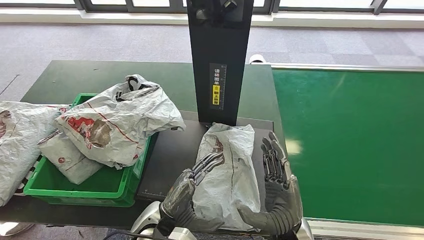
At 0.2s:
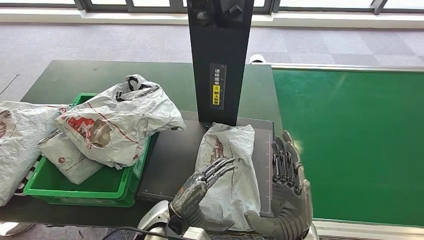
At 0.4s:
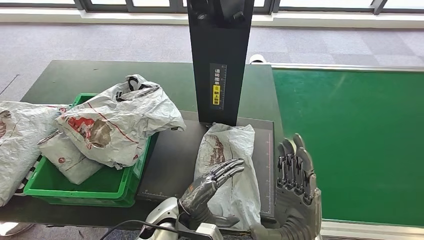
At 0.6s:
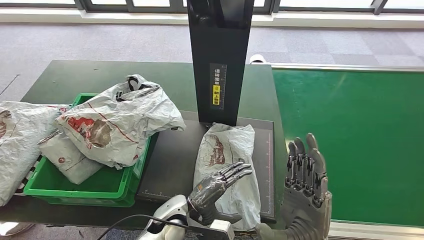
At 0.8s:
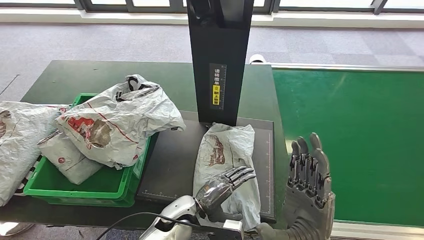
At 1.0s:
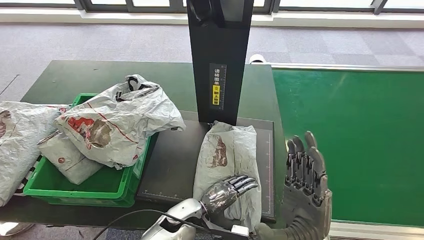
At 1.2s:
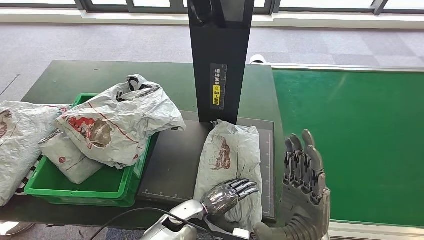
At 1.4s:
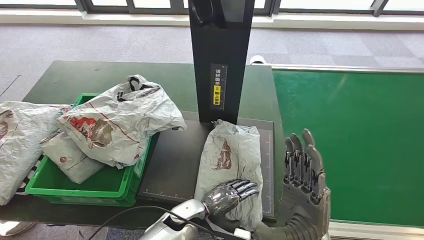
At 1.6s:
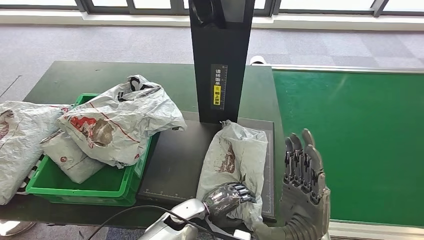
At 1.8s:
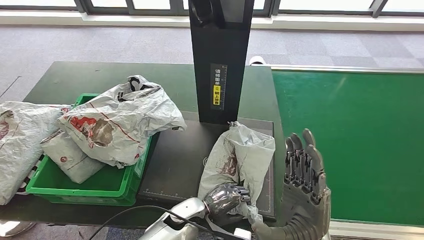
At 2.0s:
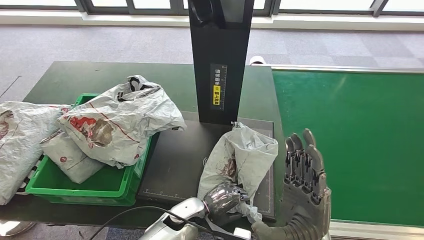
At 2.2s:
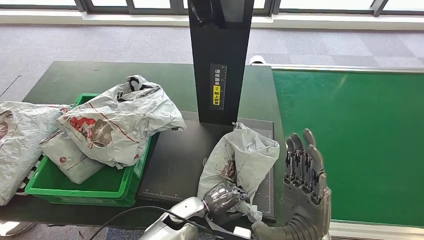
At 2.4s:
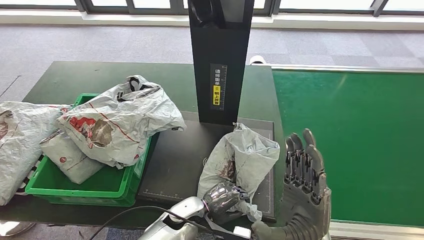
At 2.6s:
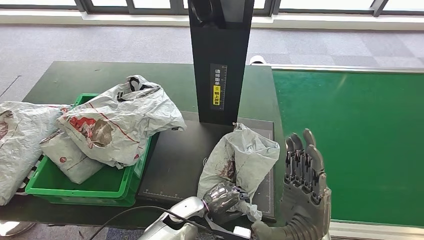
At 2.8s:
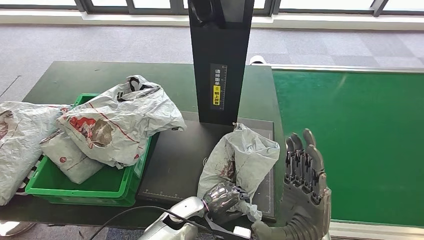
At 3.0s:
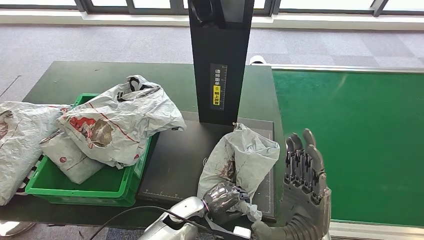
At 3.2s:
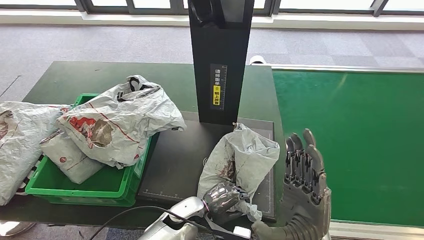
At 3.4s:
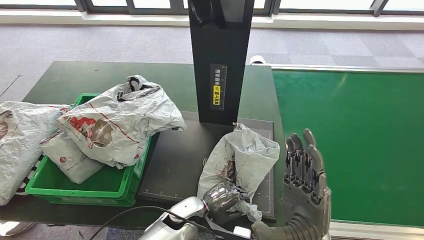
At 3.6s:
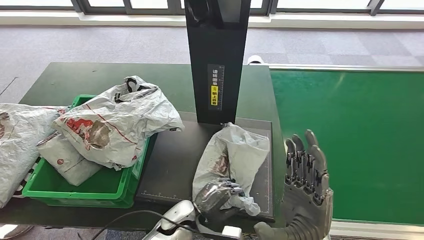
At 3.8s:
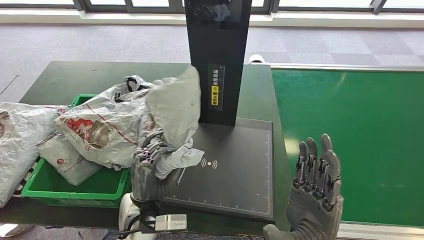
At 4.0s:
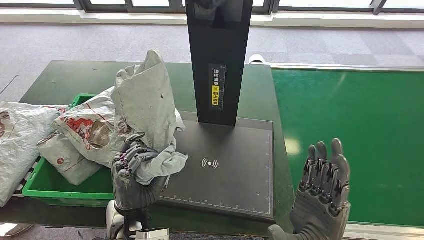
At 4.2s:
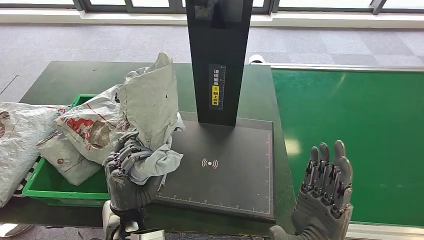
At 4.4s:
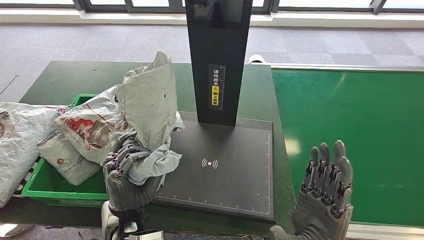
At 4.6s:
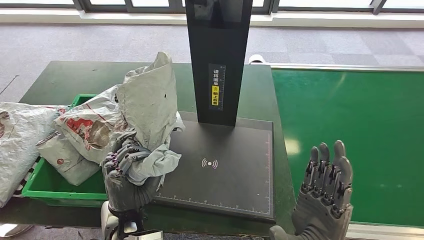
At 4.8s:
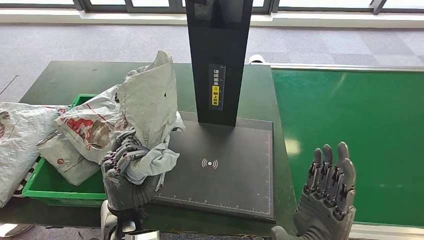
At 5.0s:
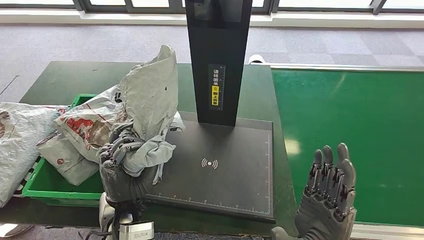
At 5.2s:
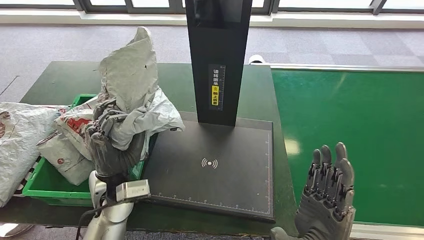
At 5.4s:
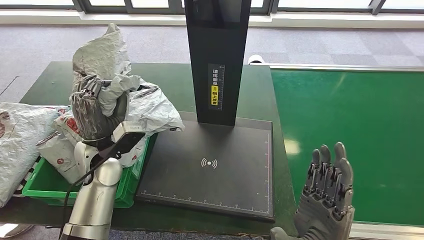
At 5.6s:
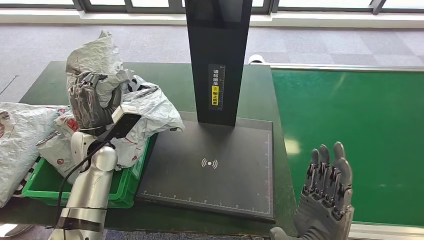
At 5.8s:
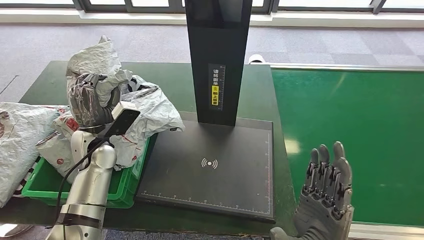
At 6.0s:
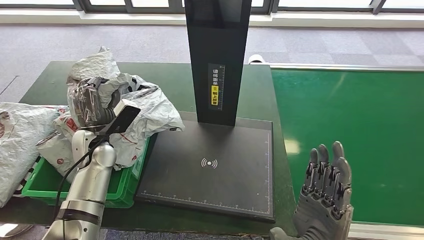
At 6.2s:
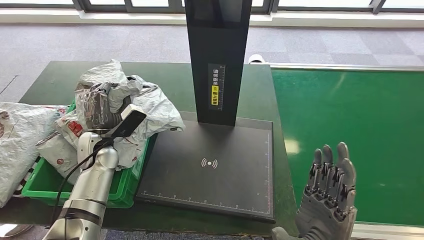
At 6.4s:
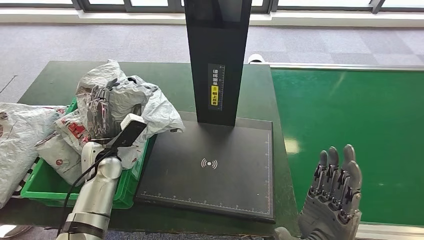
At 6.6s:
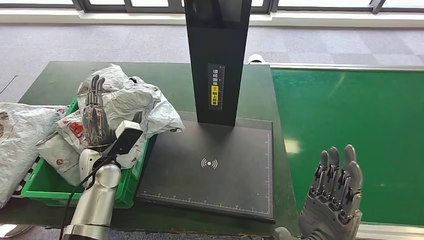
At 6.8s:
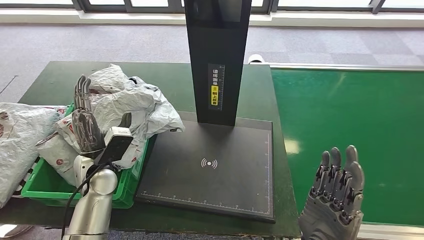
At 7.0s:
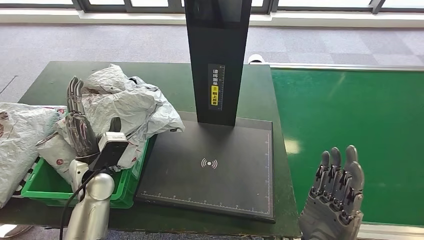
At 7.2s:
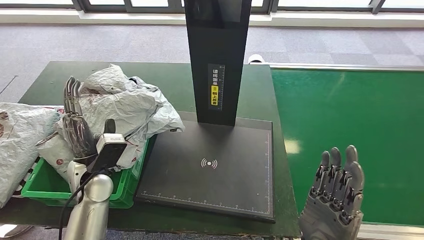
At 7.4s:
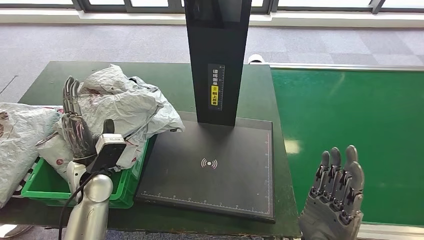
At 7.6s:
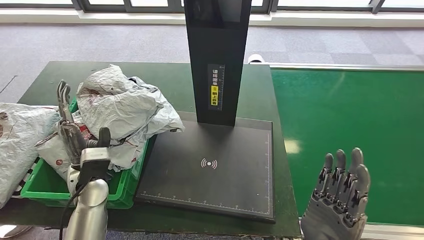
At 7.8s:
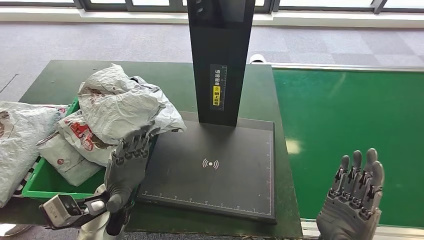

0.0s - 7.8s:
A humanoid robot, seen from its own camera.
Step, 2.8s - 4.2s: Pick up the parcel from the inbound machine.
Step, 4.4s - 7.8s: Place the parcel into the delivery box.
1.6s - 3.2s: Both hands stay put.
4.6s - 6.2s: The left hand travels forward and to the left by approximately 20 cm.
6.2s - 7.8s: The left hand goes roughly 15 cm backward and to the right.

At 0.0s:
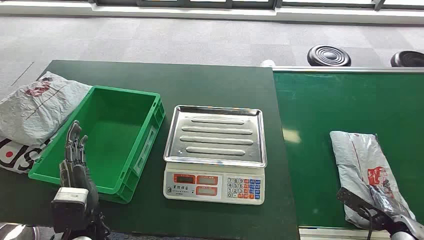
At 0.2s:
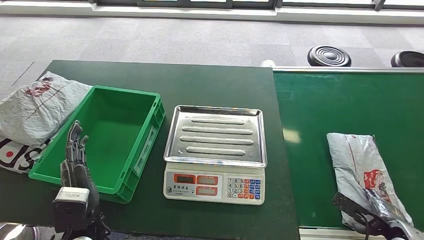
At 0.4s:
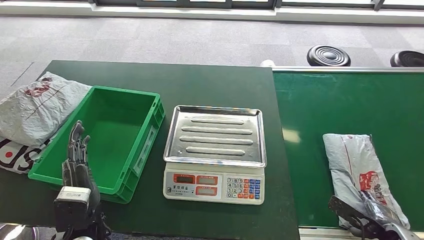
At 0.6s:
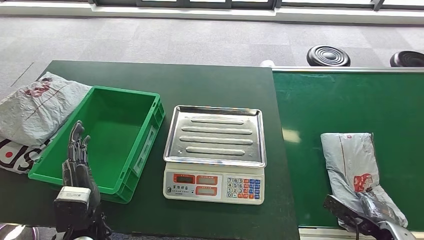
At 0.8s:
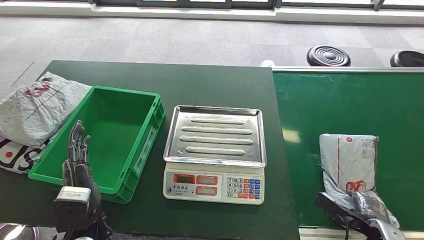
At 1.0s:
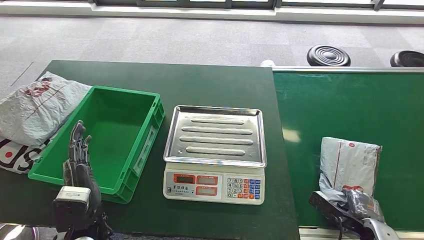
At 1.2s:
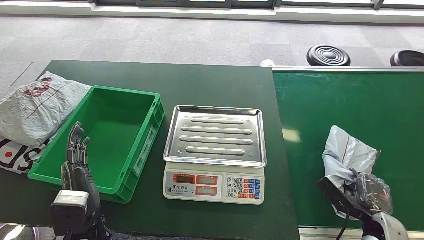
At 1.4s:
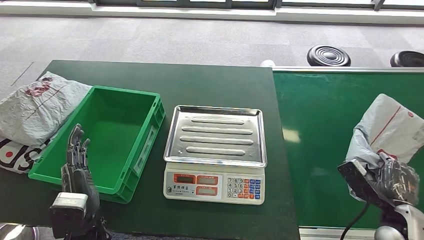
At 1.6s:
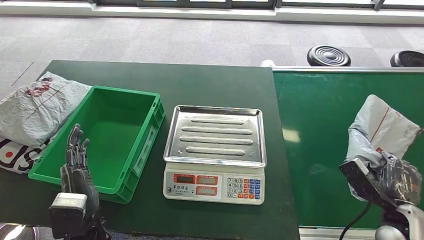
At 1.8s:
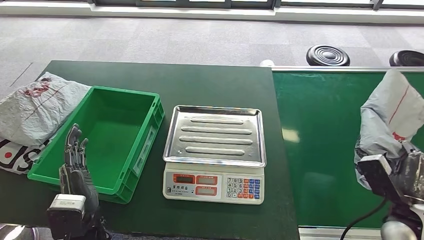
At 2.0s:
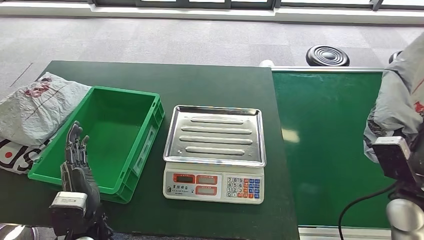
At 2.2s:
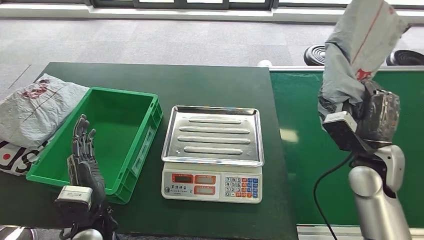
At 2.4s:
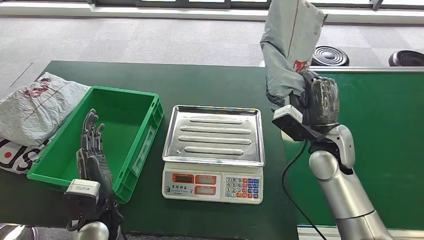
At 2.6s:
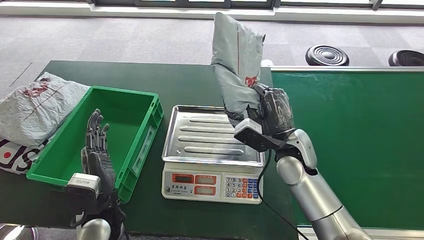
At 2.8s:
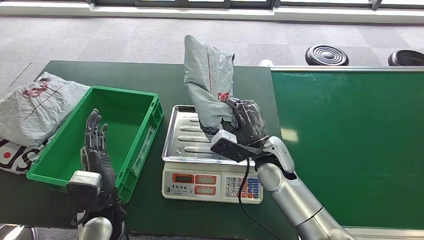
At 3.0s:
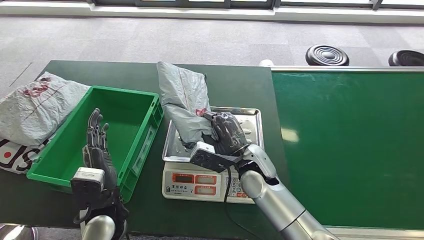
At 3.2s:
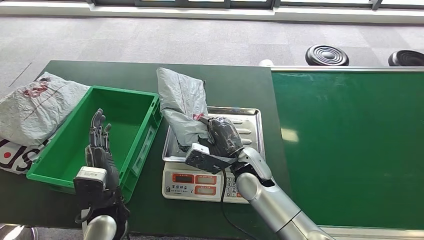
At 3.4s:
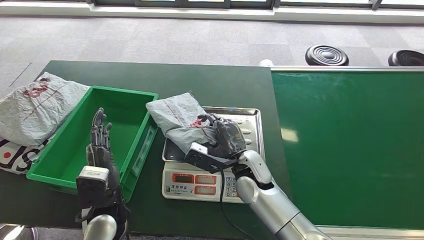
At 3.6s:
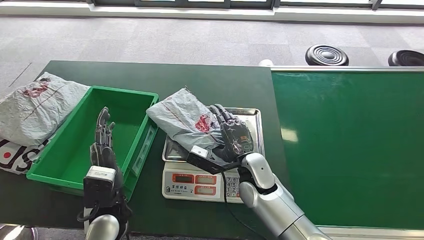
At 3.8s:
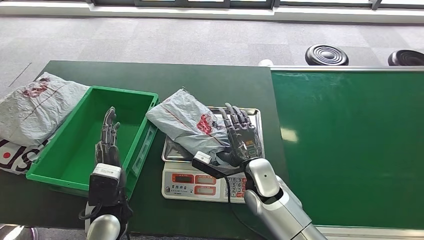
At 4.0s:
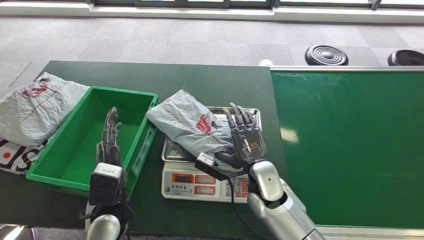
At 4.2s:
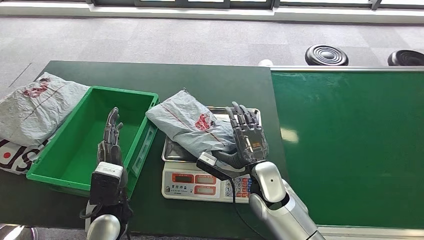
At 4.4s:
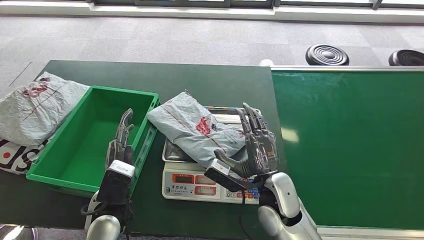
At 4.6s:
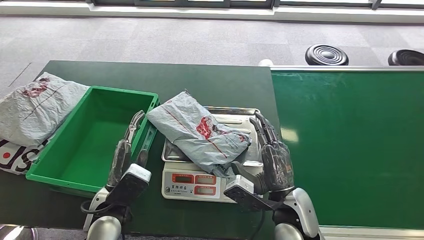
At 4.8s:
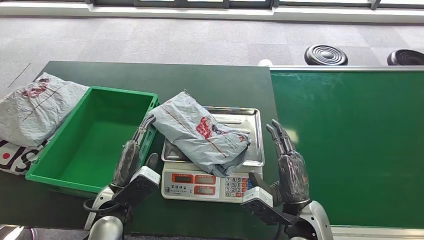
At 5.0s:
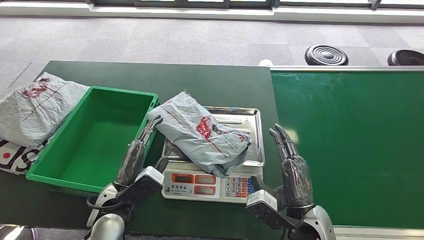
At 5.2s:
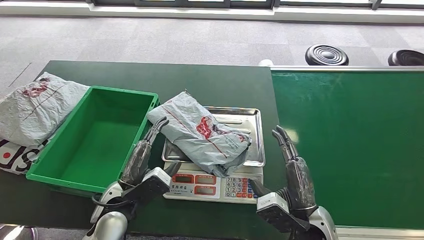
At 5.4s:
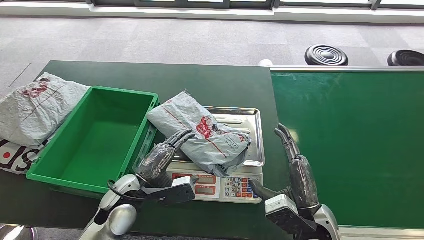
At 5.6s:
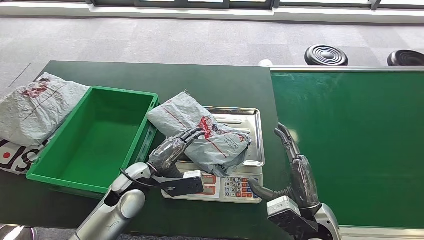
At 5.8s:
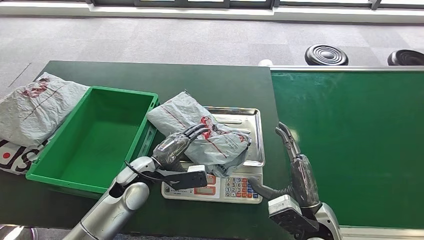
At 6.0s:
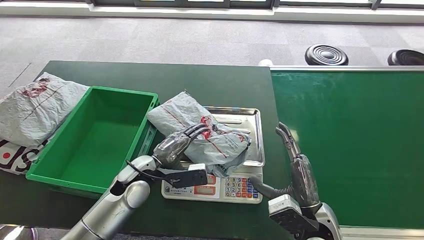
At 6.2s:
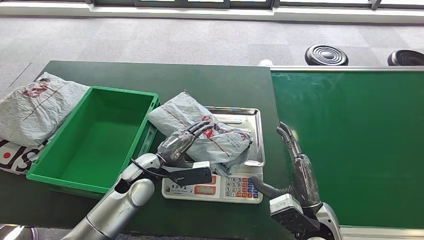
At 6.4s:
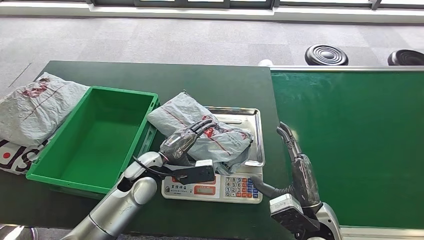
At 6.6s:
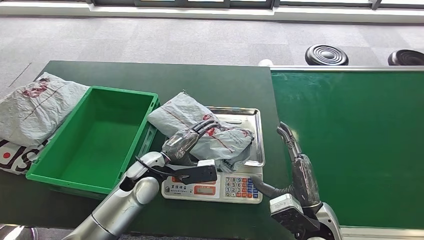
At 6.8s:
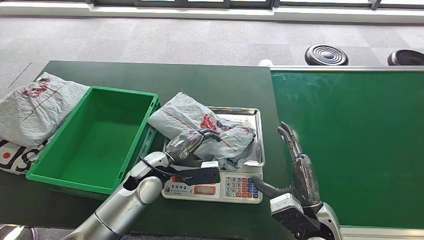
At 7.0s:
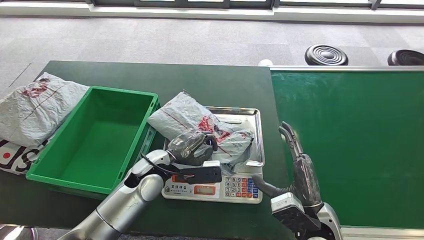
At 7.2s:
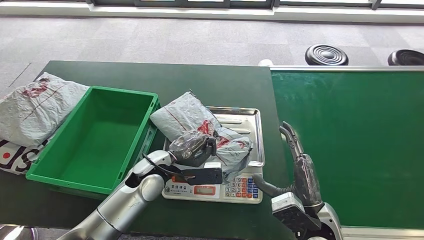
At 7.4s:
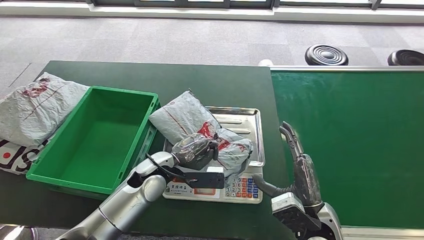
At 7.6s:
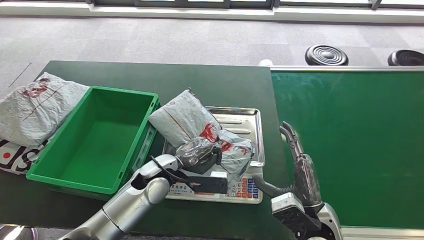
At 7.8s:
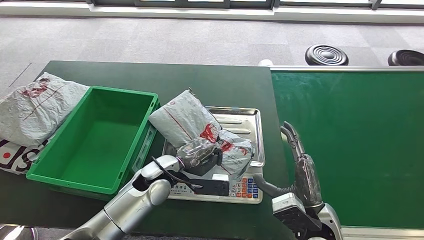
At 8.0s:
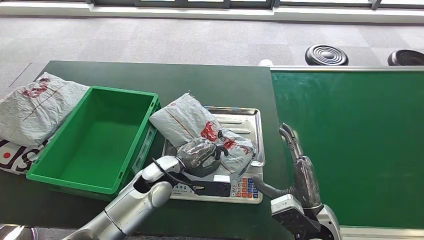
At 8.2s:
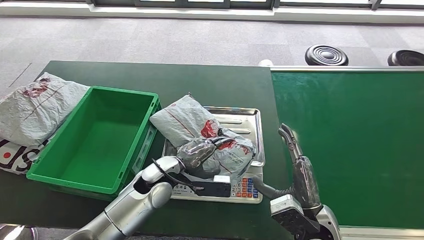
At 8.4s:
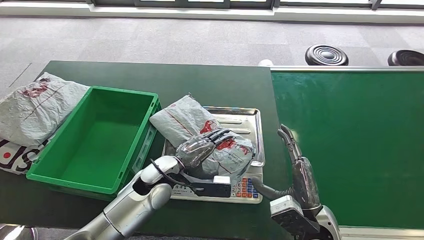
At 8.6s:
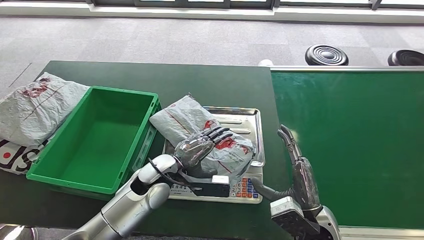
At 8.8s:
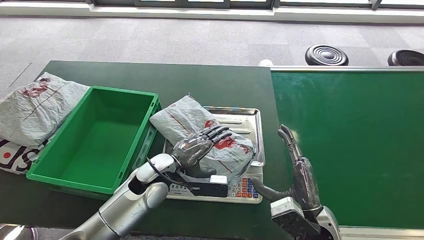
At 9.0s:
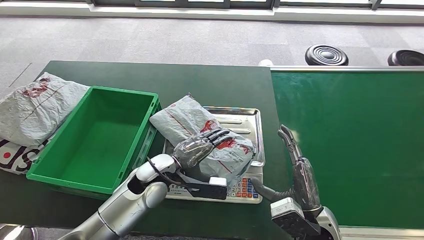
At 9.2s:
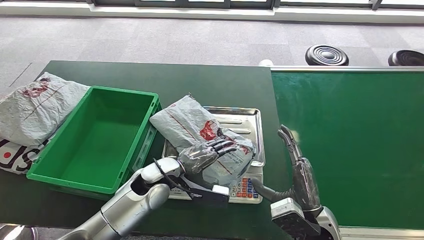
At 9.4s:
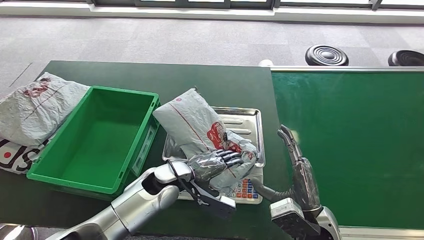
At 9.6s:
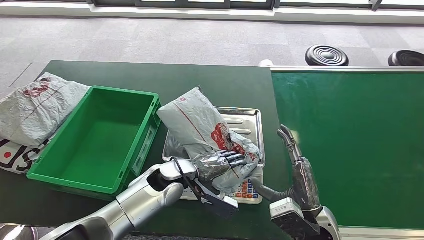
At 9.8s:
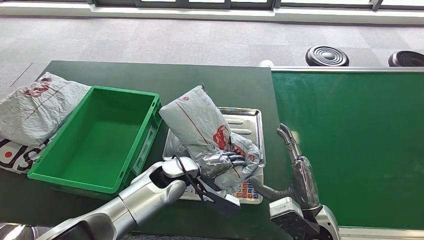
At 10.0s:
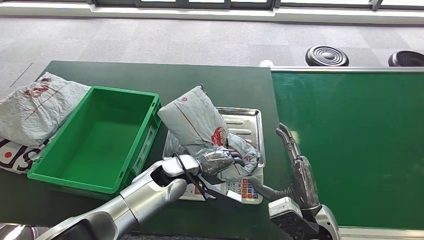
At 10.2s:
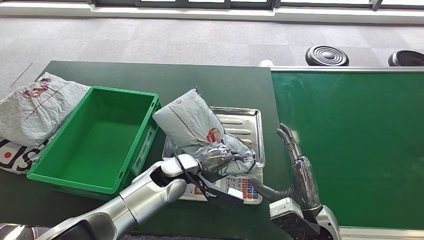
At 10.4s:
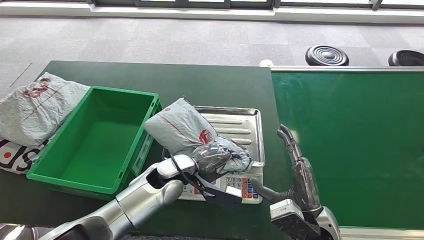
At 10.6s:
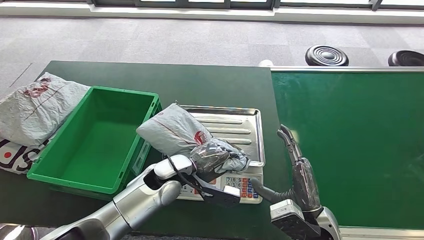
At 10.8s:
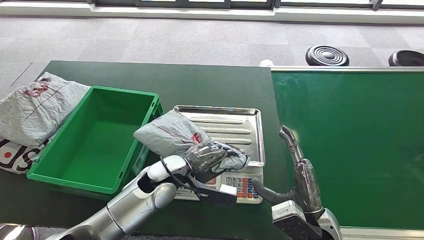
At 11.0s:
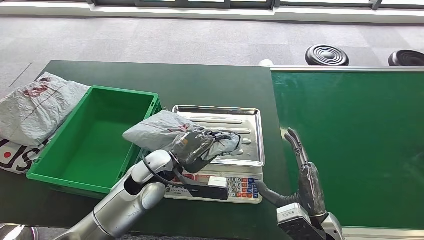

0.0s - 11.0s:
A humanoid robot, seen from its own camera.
Step, 0.0s - 2.4s: Take the parcel off the conveyor belt.
Step, 2.6s - 5.2s: Place the parcel onto the inbound machine.
3.2s - 4.8s: The right hand shifts roughly 15 cm backward and to the right.
4.8s - 6.2s: The left hand is displaced forward by roughly 10 cm.
6.2s - 7.8s: The hands move only a little.
7.8s - 9.4s: The hands move only a little.
9.4s - 11.0s: The left hand shifts by approximately 5 cm.
